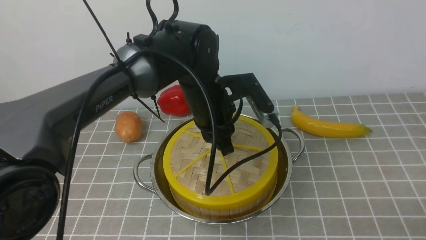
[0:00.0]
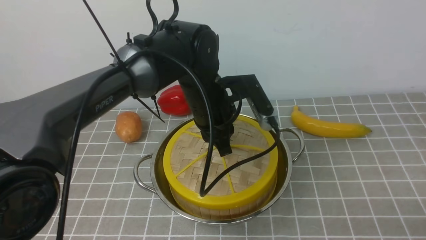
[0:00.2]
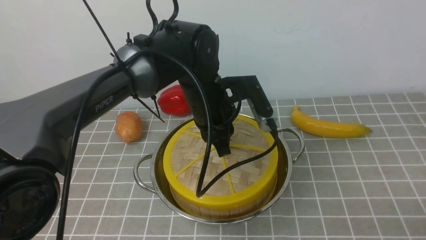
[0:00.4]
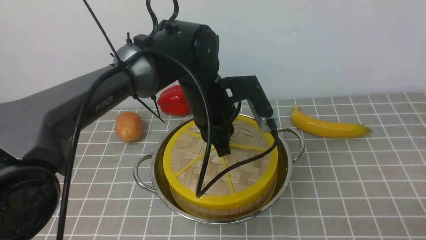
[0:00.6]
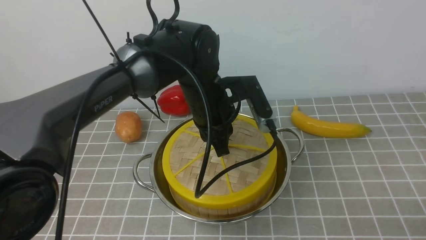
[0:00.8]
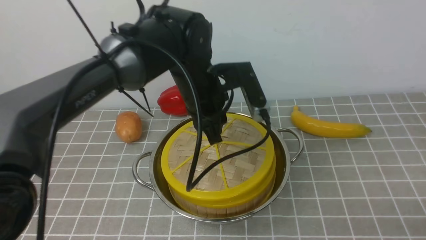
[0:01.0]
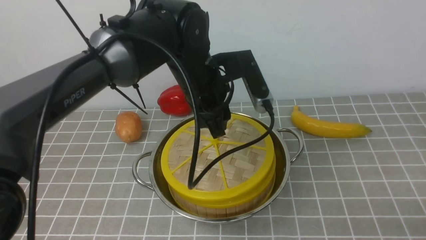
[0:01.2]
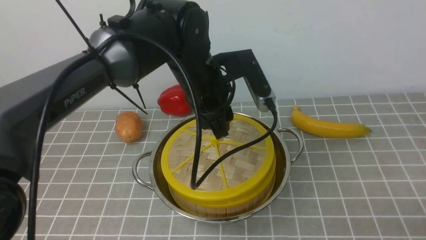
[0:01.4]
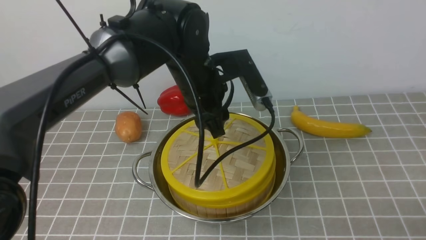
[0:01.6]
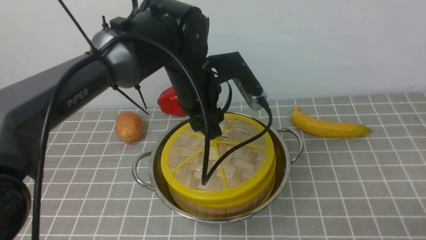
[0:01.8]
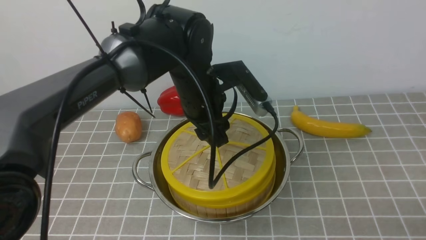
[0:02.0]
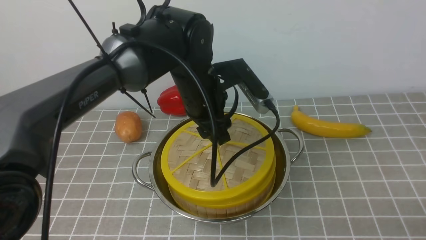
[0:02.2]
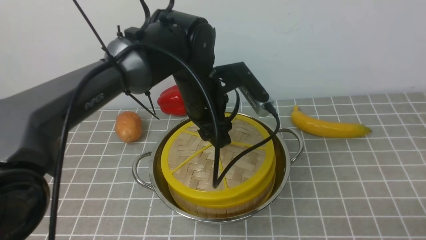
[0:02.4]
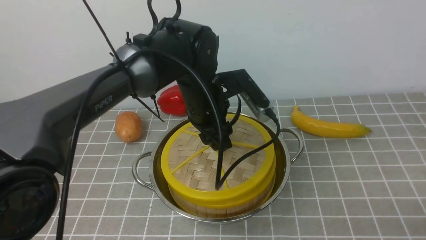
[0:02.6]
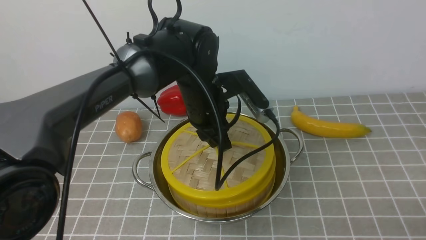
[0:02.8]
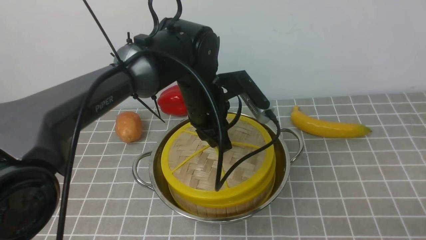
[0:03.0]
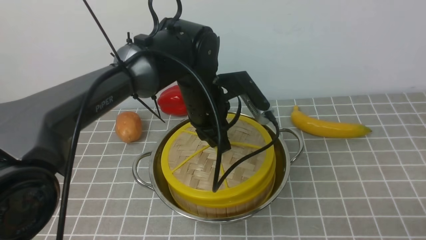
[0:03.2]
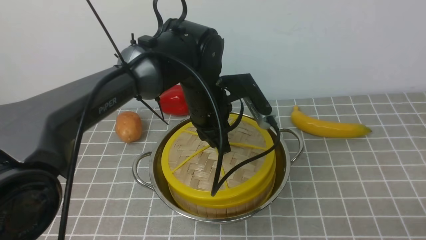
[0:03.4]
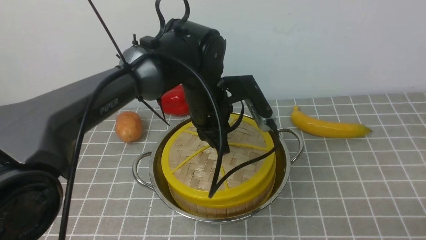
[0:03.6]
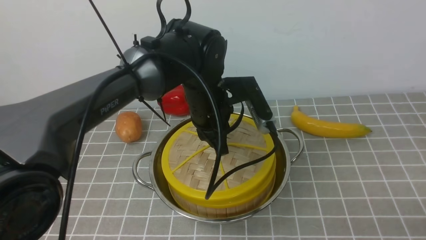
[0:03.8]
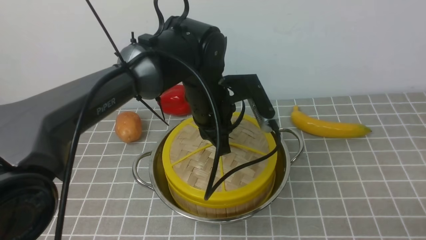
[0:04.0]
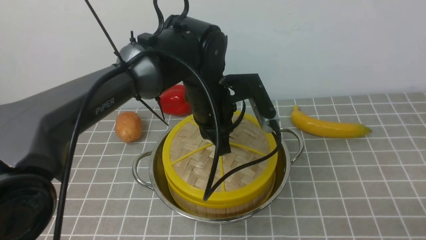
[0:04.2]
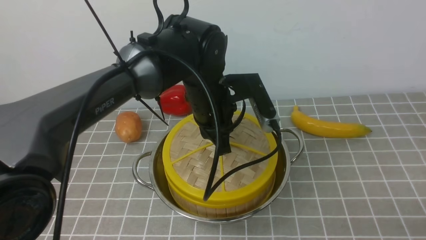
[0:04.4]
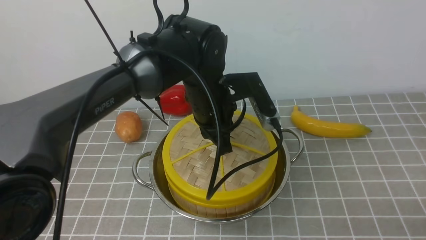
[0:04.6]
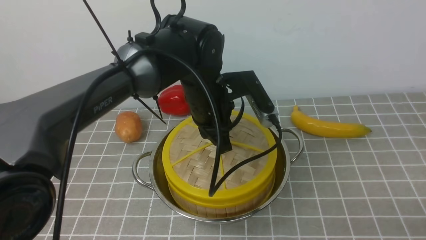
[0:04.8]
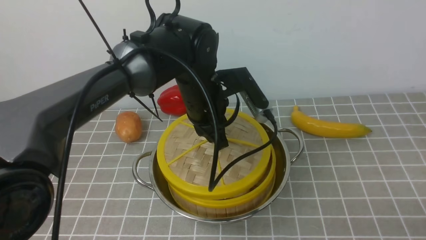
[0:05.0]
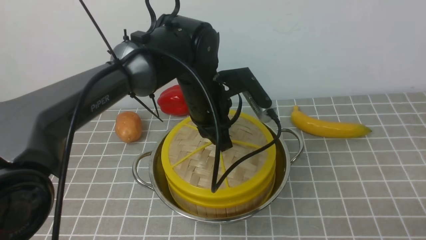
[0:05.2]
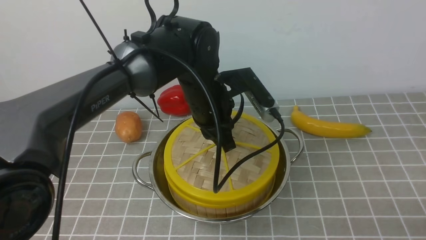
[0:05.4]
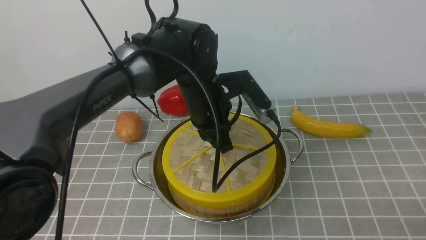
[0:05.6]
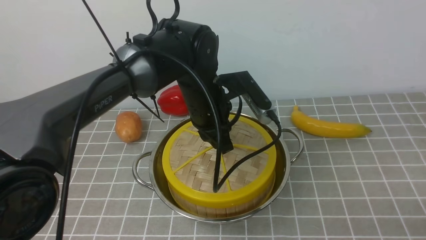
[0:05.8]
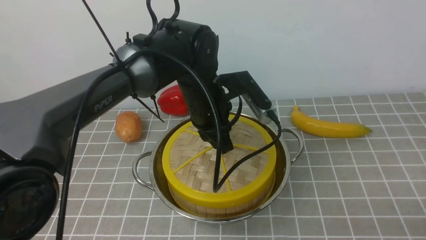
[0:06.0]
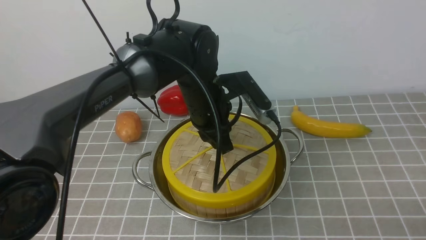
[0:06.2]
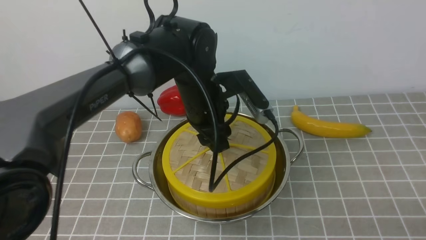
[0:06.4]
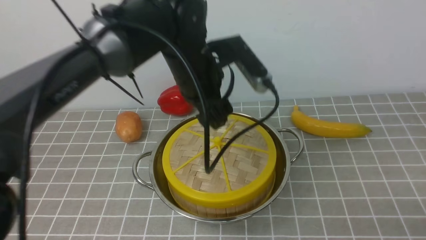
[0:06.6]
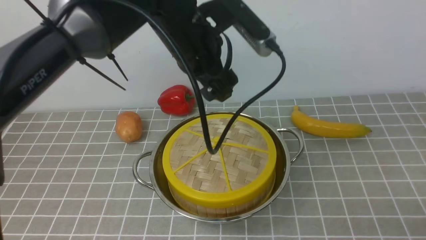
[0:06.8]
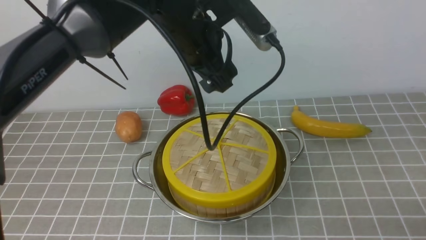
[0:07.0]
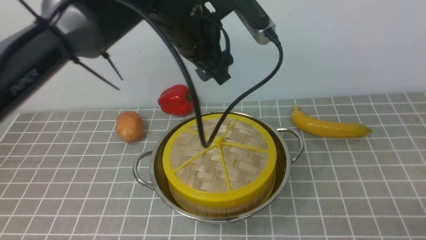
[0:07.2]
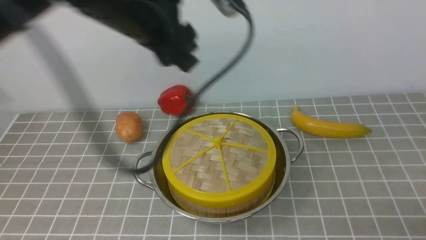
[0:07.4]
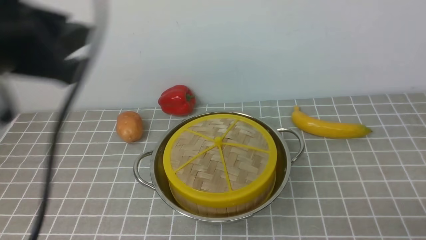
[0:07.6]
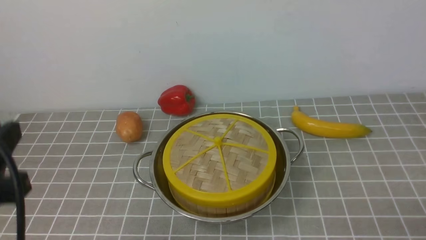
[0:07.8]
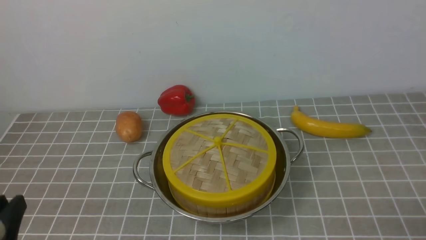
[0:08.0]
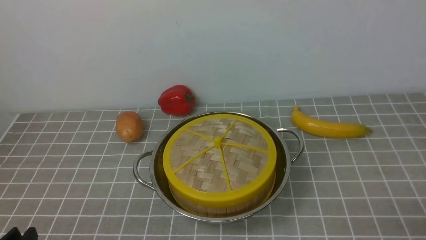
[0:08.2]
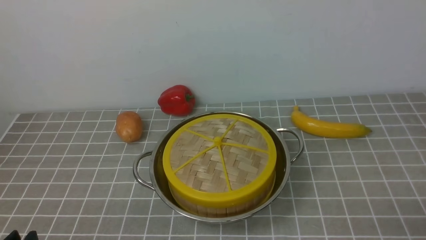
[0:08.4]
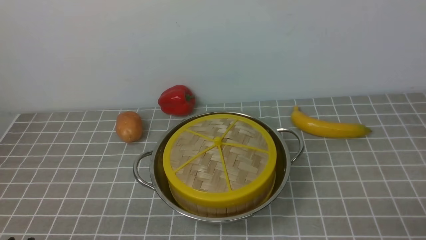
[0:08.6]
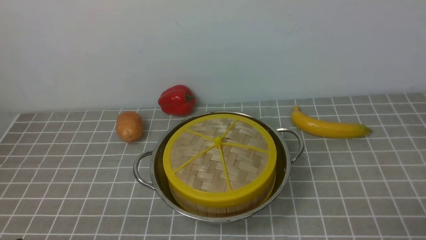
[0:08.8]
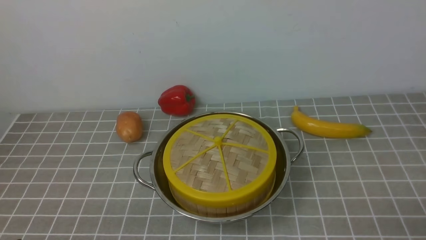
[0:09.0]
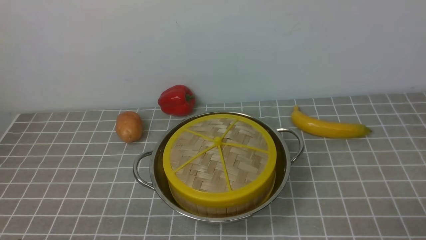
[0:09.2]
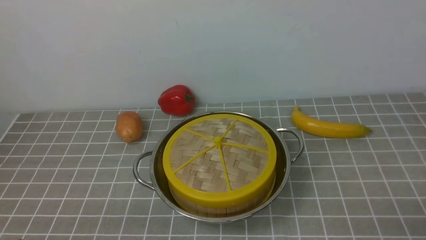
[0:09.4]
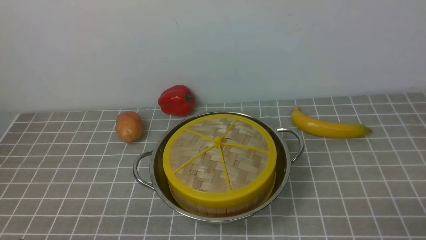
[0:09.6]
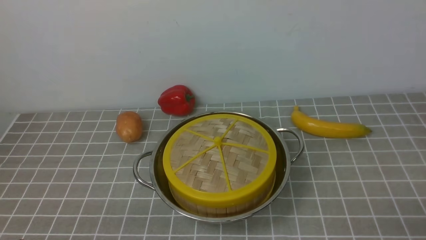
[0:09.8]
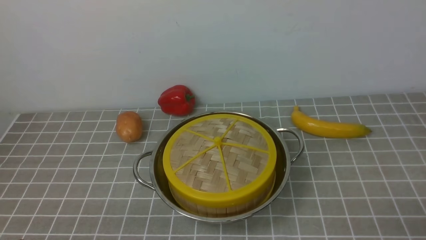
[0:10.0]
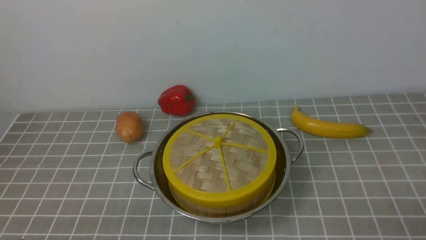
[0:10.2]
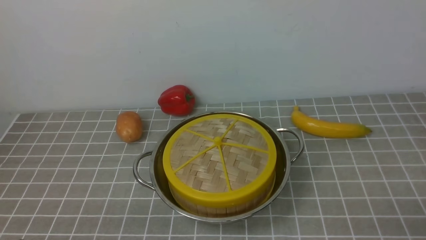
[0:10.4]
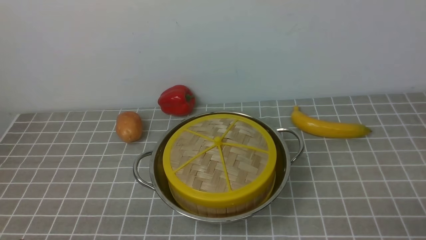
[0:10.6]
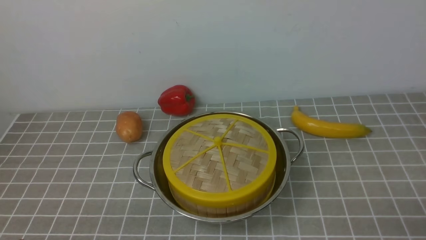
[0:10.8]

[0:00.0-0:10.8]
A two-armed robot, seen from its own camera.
Task of the whole recording: place the steamer in the pot on the grey tablecloth, and put the lid on the steamer.
Step, 0:00.0 to 0:06.4: use the left arm to place the steamer lid on the steamer.
0:00.0 to 0:01.6: The left gripper opens up.
0:01.6 to 0:03.0: The left gripper closes its fingers.
0:03.0 to 0:06.2: The grippers move only a little.
0:06.2 to 0:07.8: The left gripper goes about 35 cm backward and to the left, and opens, then closes once more.
0:07.8 to 0:09.2: The left gripper shifts some 15 cm downward and backward.
0:09.2 to 0:10.8: Both grippers stay about where they are.

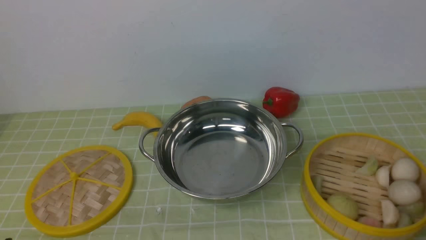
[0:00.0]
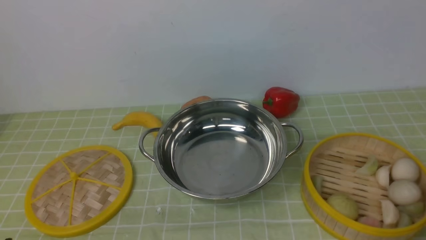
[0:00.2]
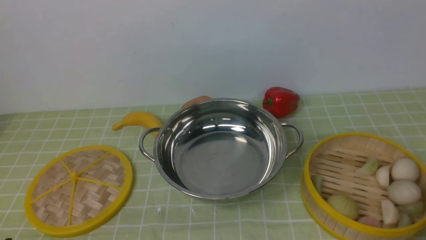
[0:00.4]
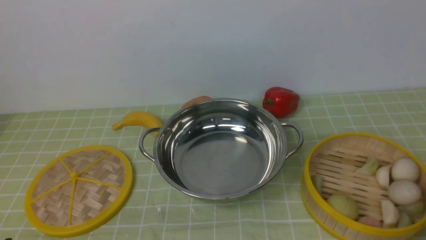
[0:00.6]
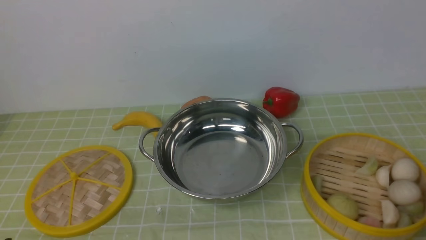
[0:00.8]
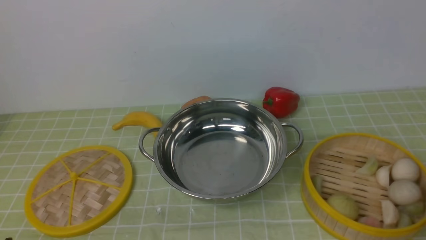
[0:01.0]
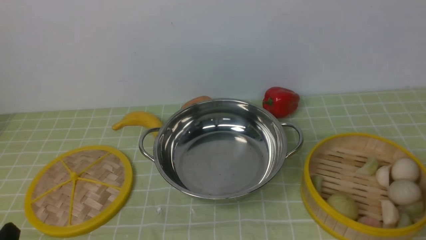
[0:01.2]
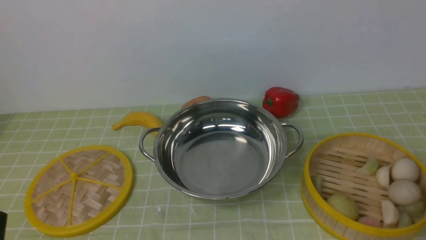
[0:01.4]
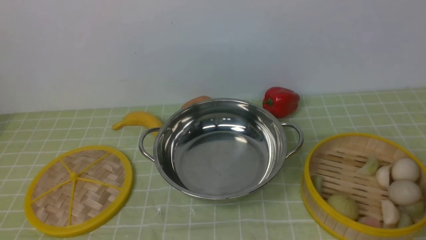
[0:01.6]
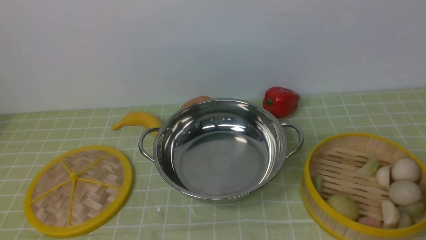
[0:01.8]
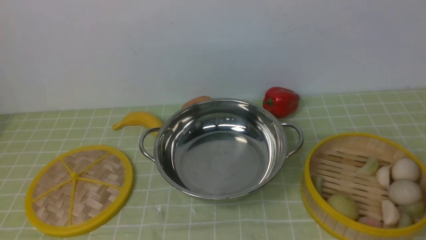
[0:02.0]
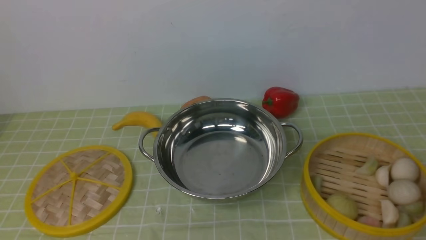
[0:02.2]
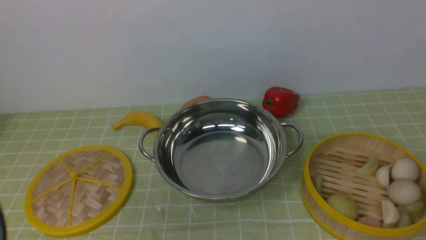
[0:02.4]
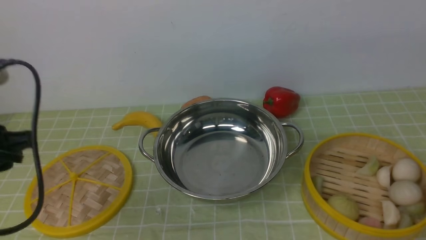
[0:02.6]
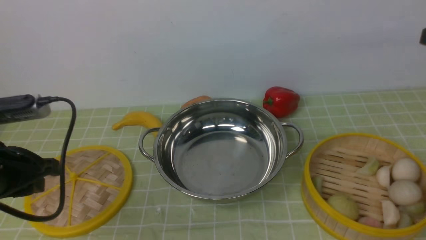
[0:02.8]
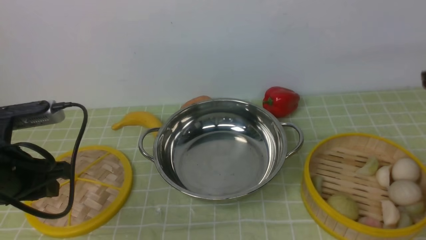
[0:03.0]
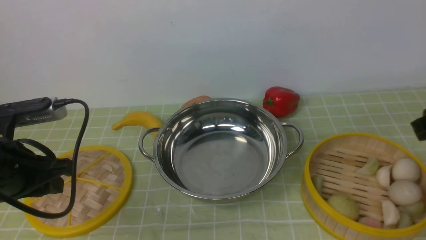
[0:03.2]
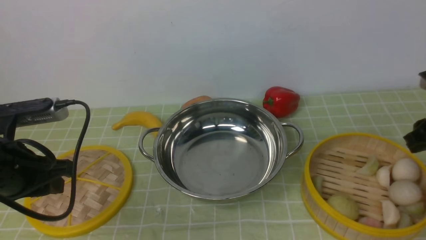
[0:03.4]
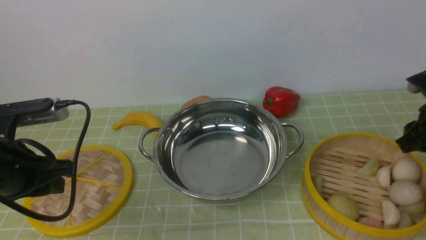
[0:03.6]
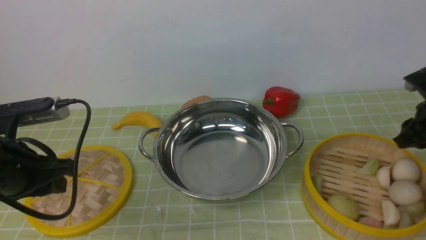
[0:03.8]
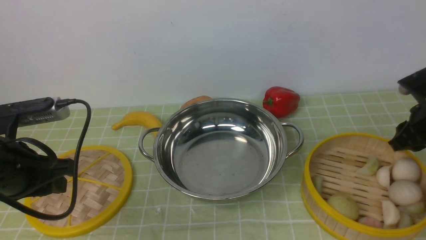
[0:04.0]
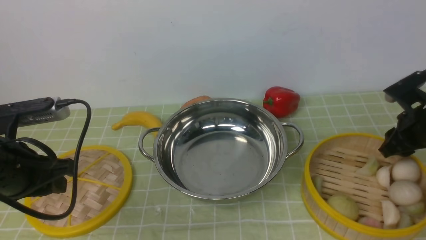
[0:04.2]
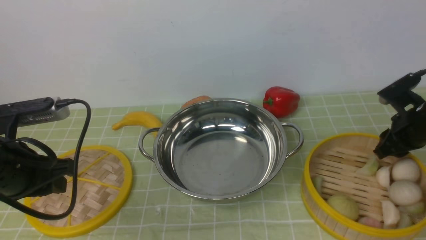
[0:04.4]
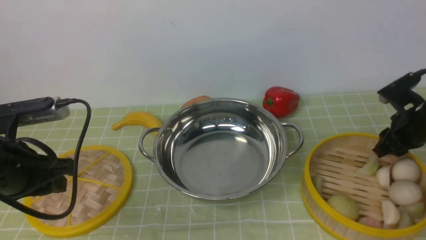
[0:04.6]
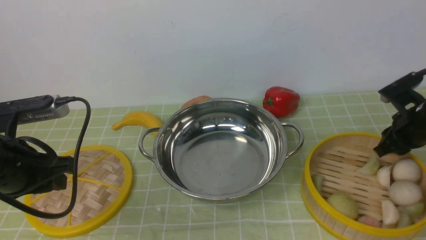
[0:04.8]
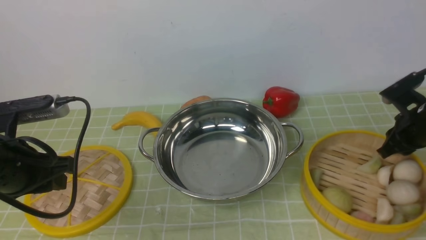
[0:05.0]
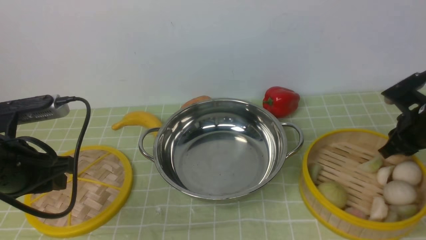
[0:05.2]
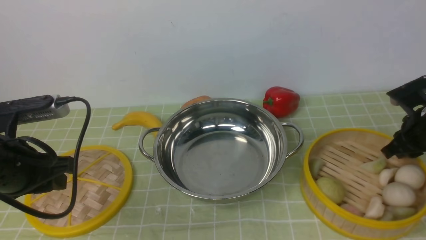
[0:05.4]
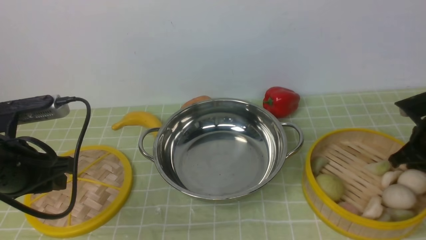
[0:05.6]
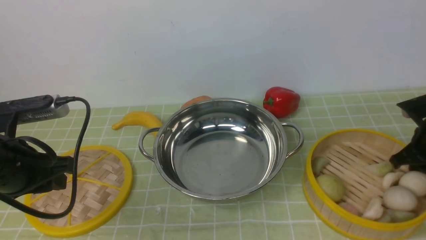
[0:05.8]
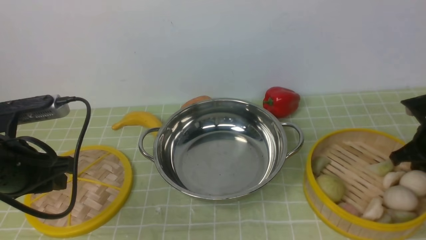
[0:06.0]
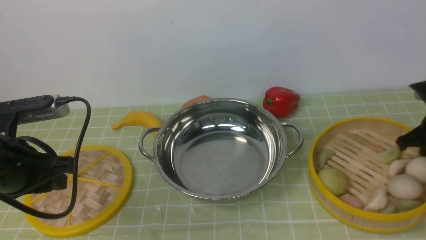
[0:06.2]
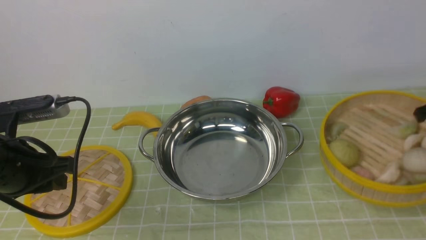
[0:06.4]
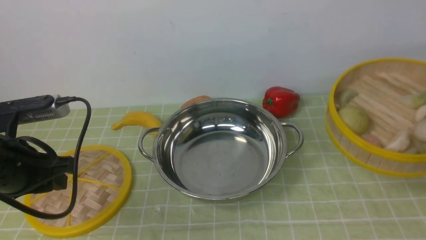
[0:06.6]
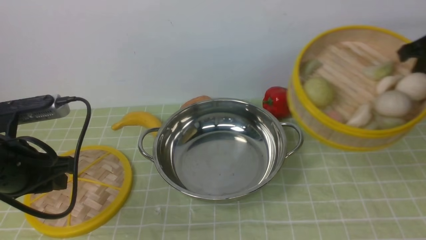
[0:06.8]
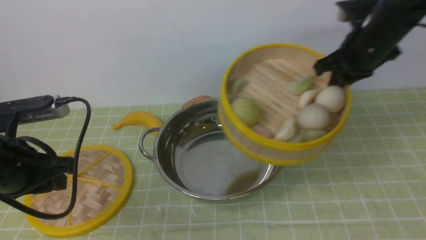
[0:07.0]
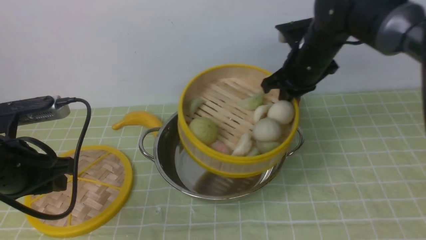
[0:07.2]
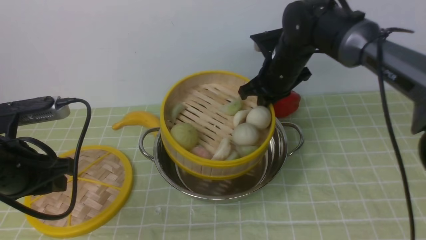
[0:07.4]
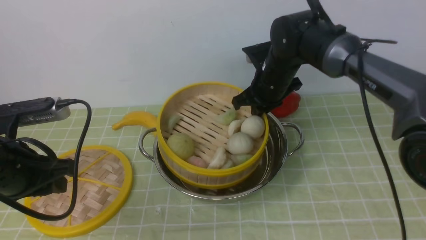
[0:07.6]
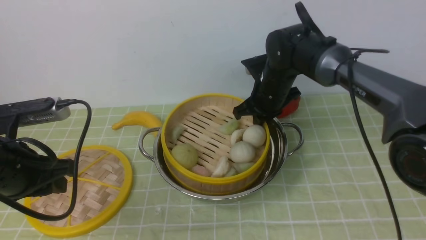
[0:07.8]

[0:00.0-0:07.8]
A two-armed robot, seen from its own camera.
Task of the whole recording: place the steamer in the pot on the green tablecloth, and put the lid on the steamer.
Step, 0:00.0 to 0:06.6: use the right arm to lift the steamer closest to it.
0:01.6 to 0:03.2: The left gripper goes some 15 cm forward.
0:03.2 to 0:04.6: The right gripper goes approximately 10 cm downward.
0:04.6 to 0:06.2: The right gripper ends up roughly 5 cm from where it was.
0:06.2 to 0:07.8: The right gripper shifts some 25 cm to the left.
